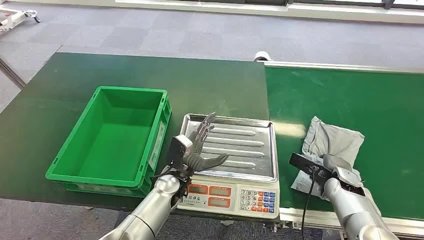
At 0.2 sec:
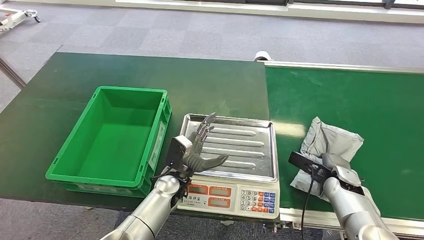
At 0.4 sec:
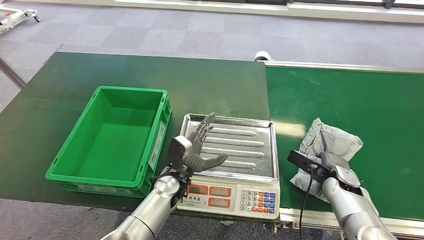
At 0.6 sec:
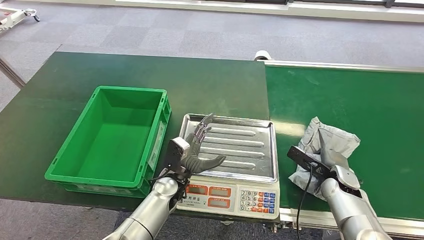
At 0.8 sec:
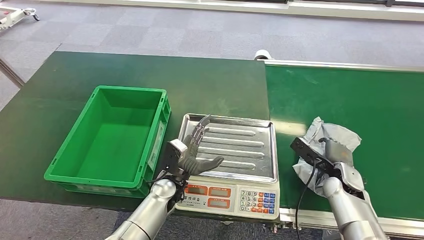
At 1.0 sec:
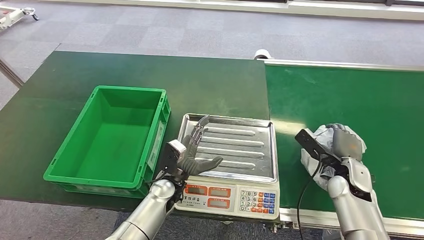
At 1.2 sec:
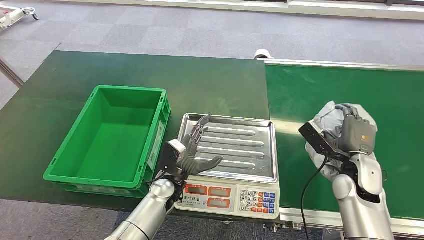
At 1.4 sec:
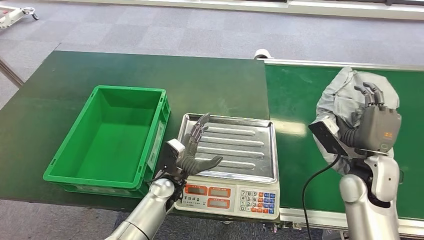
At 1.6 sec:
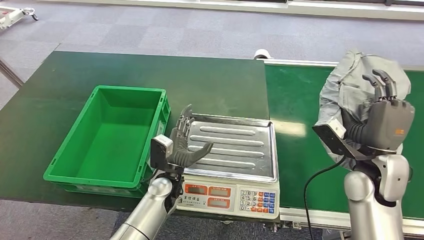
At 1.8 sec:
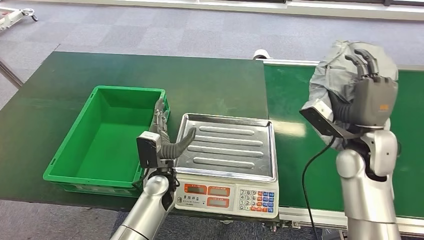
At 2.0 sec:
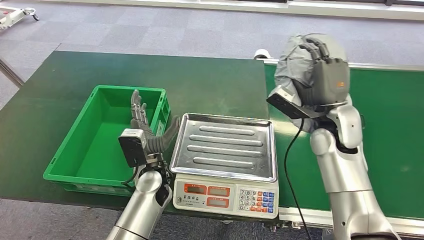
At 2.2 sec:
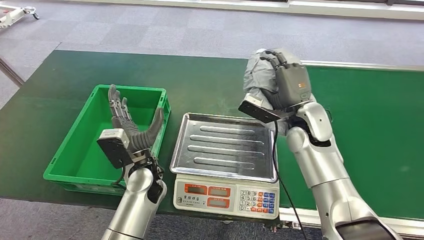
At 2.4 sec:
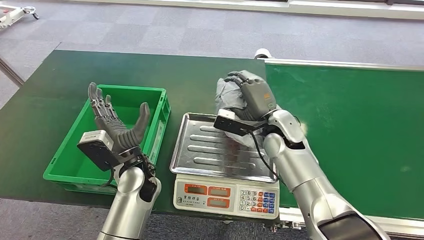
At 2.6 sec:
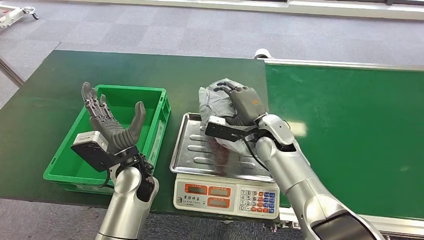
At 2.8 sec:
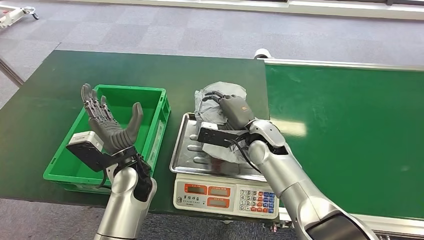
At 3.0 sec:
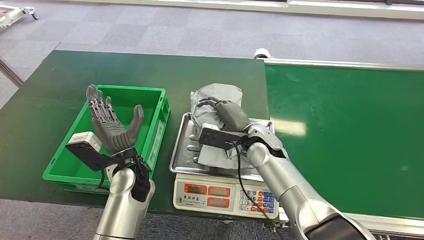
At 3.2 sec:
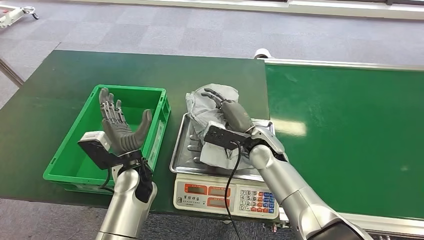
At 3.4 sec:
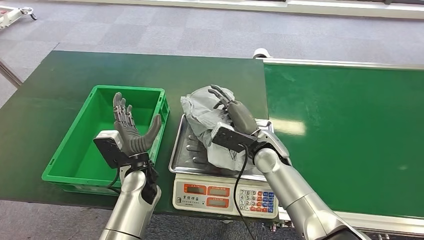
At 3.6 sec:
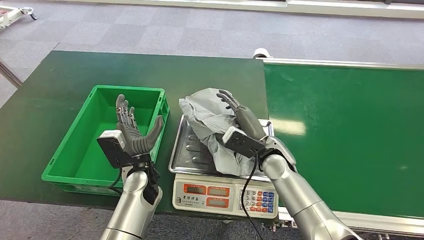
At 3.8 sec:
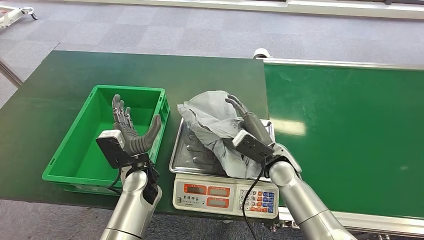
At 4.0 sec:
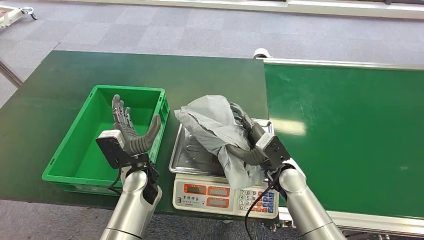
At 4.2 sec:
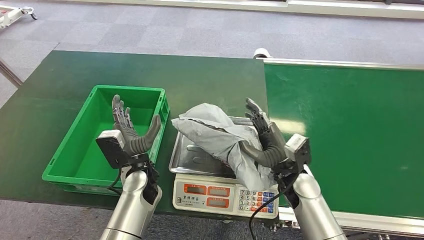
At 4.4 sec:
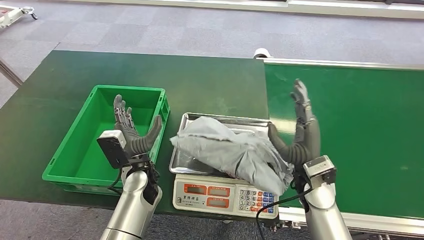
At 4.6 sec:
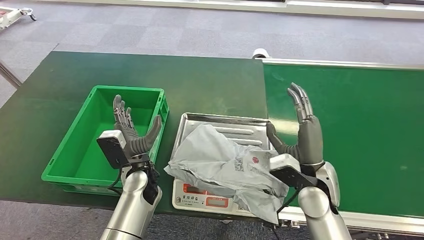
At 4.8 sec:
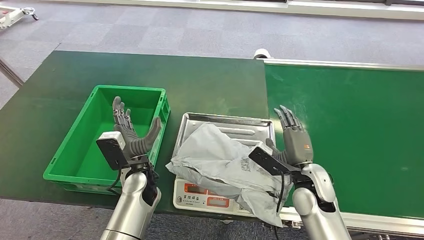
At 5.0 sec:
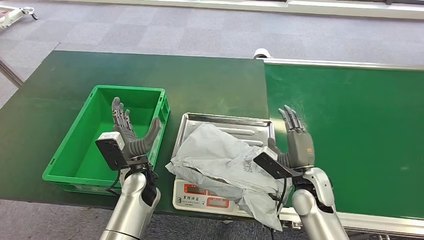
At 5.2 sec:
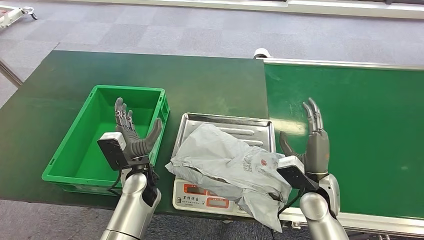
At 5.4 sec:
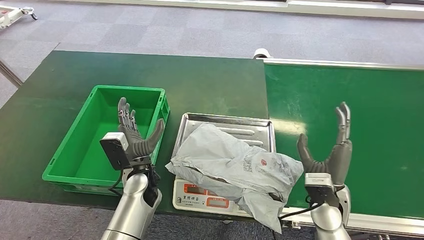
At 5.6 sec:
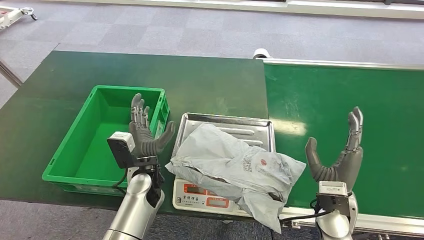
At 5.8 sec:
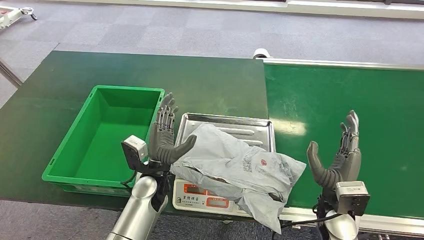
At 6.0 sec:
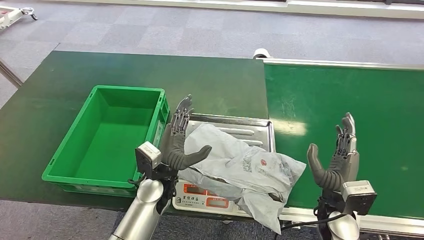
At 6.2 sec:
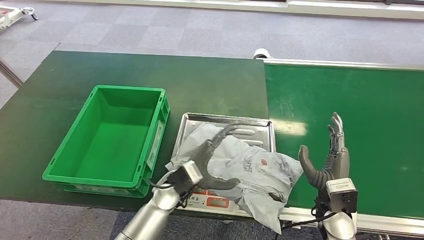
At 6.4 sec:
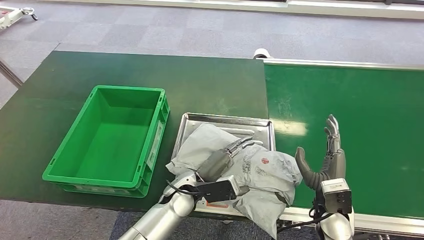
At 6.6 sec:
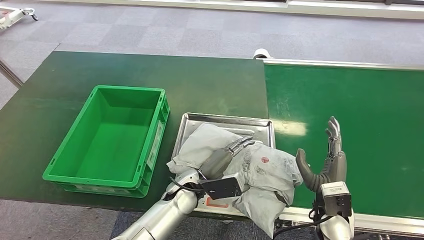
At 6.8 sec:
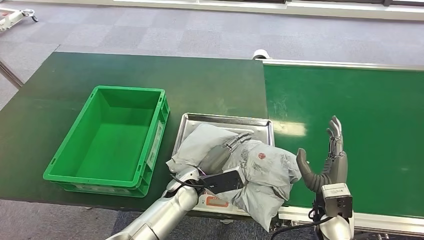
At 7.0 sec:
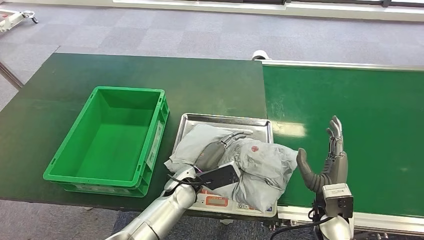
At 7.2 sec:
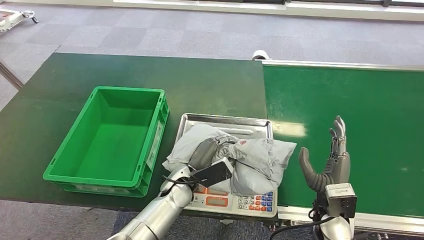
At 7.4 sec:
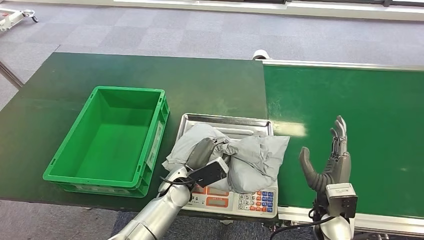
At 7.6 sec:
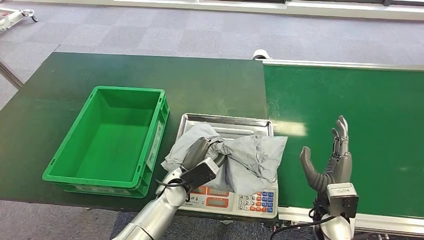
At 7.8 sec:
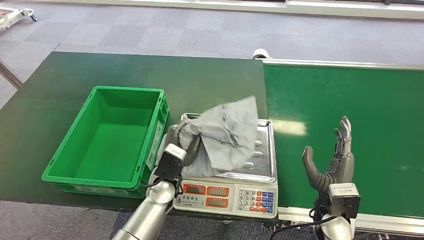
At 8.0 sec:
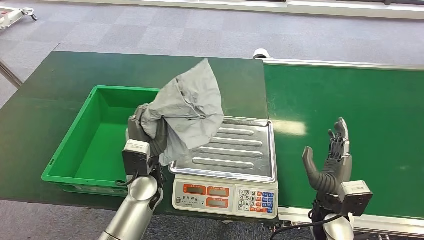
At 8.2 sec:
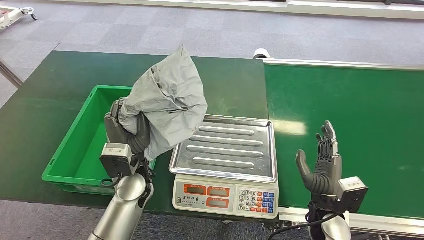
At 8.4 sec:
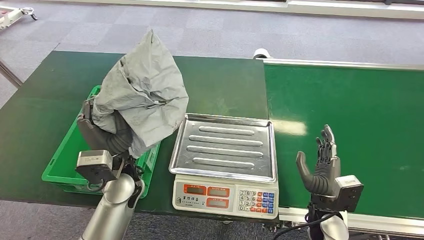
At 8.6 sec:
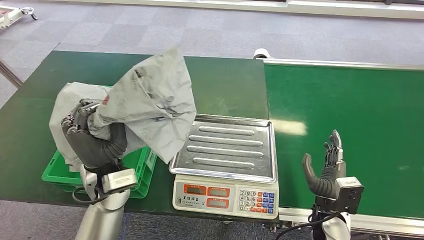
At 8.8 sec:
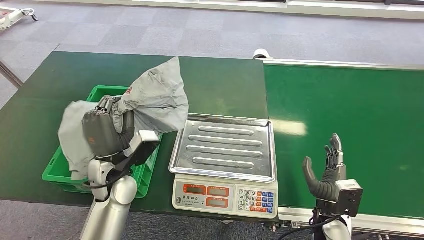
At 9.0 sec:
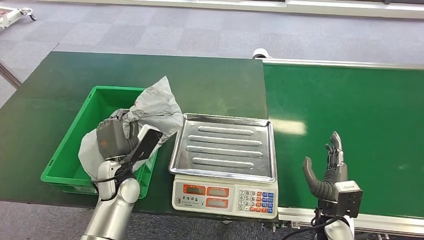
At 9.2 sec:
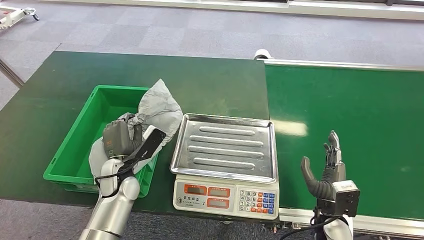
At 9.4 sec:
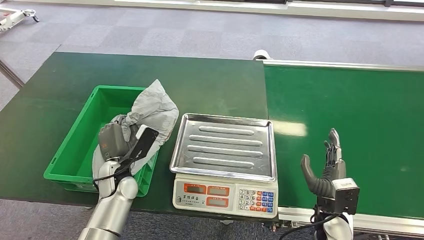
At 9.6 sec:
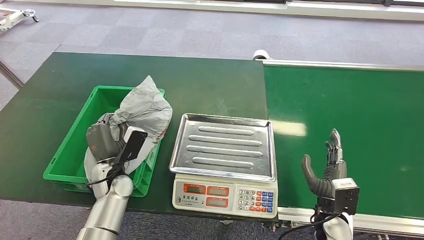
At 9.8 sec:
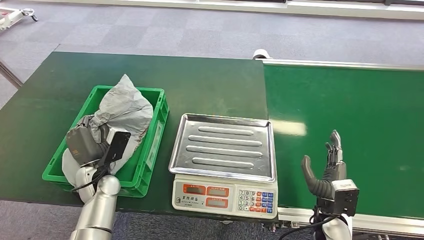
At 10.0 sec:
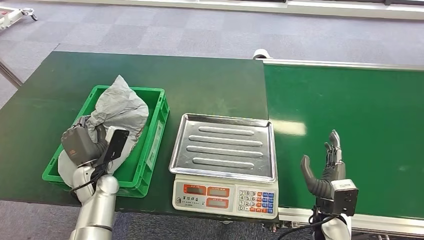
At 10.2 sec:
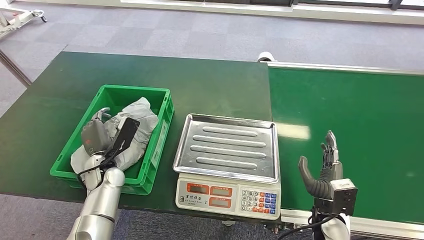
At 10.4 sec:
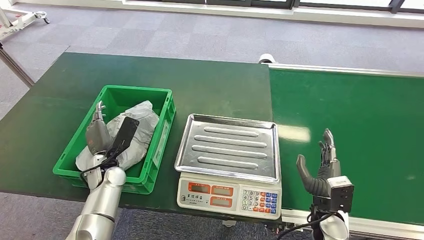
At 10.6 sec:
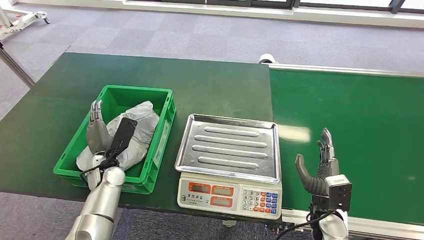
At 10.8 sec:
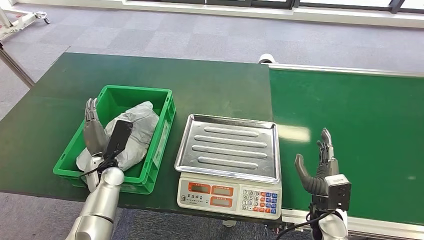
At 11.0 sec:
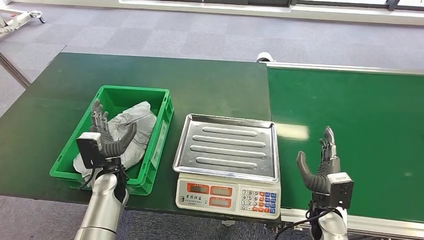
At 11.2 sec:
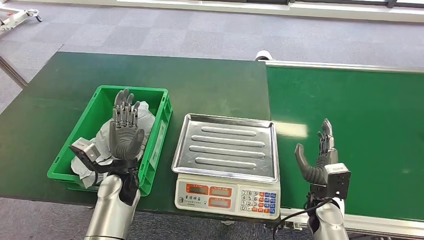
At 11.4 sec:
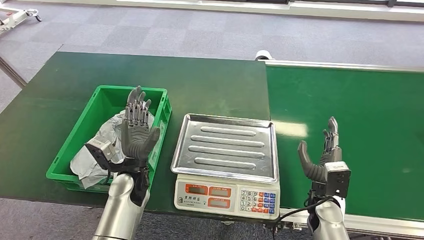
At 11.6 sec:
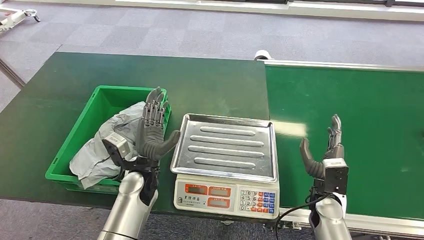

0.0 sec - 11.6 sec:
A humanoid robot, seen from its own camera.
Task of the whole recording: Weigh the package on the weighing device and place it in the left basket.
Step, 0.0 sec - 1.2 sec: Pick up the package from the conveyor belt.
Step, 1.4 sec - 5.8 sec: Place the package onto the inbound machine.
Step, 6.2 sec - 8.2 sec: Pick up the package from the inbound machine.
Step, 8.6 sec - 11.6 sec: Place the package into the parcel locker.
4.4 sec - 5.8 sec: The right hand is displaced to the right and backward by roughly 10 cm.
